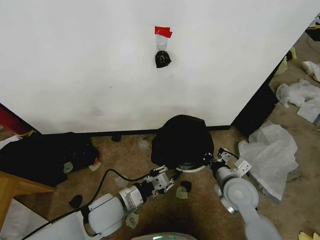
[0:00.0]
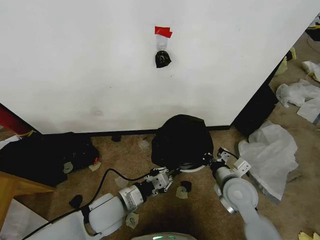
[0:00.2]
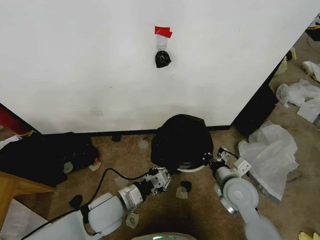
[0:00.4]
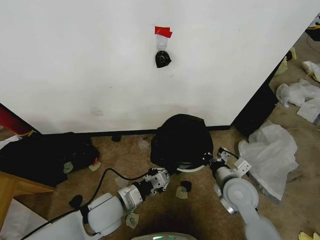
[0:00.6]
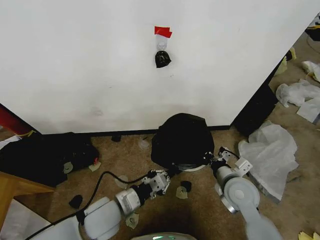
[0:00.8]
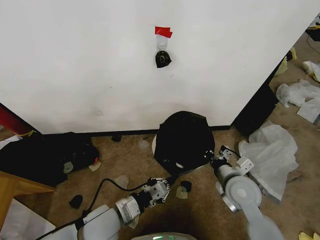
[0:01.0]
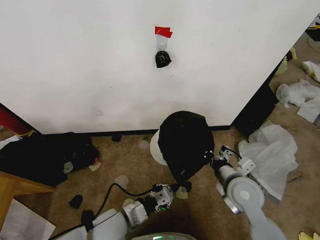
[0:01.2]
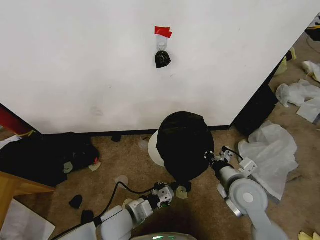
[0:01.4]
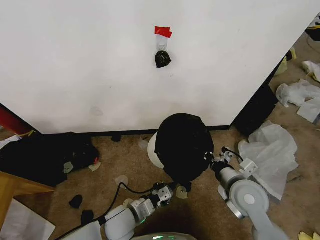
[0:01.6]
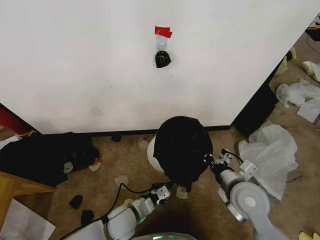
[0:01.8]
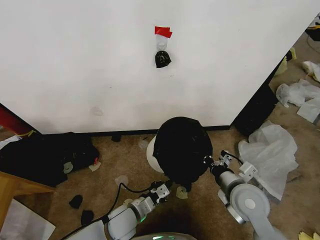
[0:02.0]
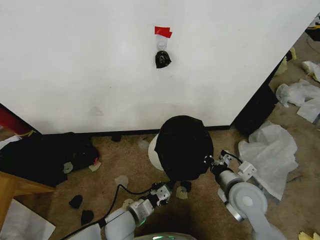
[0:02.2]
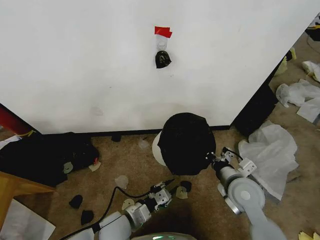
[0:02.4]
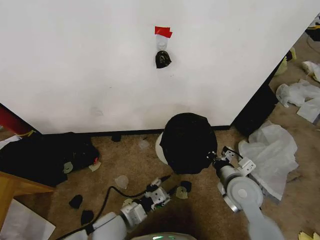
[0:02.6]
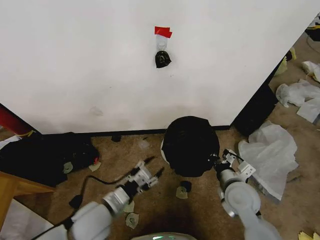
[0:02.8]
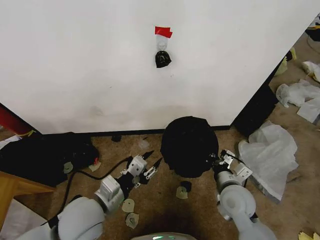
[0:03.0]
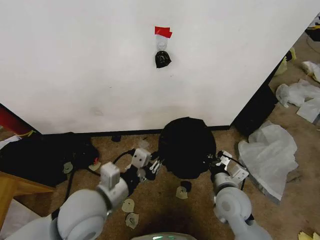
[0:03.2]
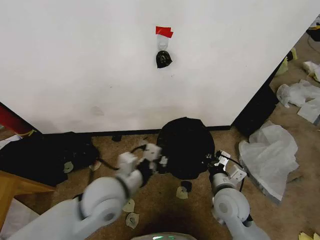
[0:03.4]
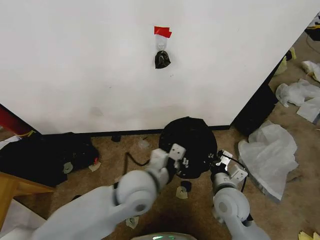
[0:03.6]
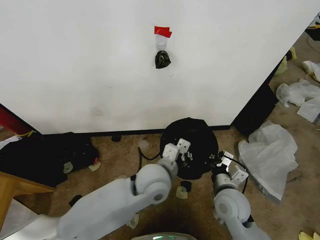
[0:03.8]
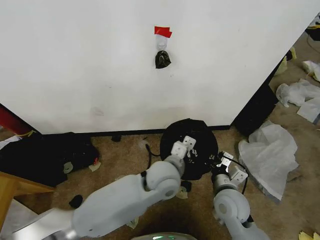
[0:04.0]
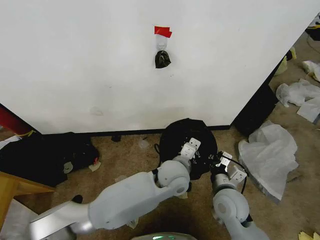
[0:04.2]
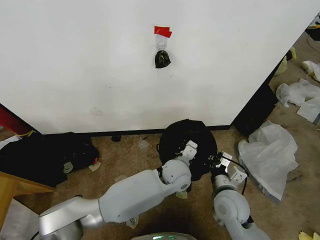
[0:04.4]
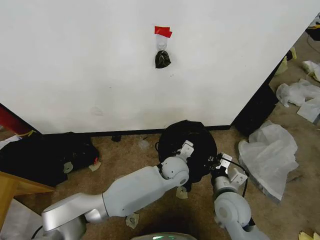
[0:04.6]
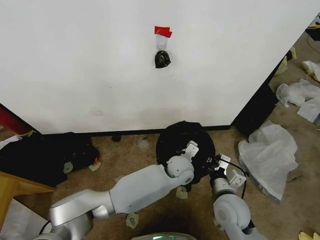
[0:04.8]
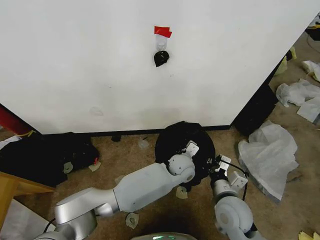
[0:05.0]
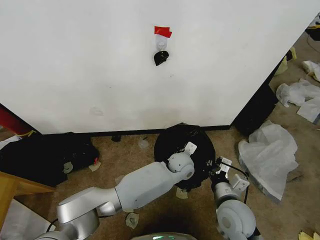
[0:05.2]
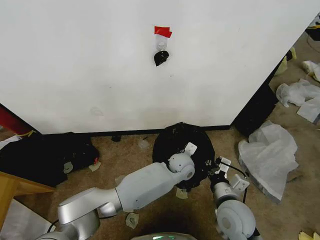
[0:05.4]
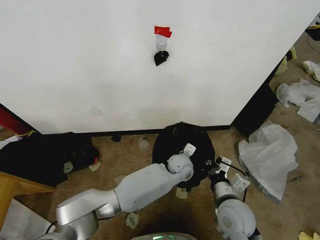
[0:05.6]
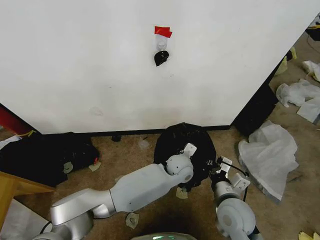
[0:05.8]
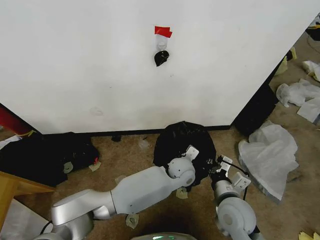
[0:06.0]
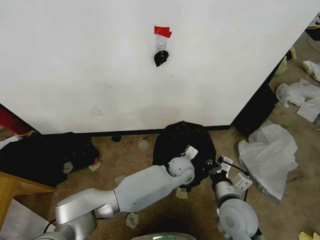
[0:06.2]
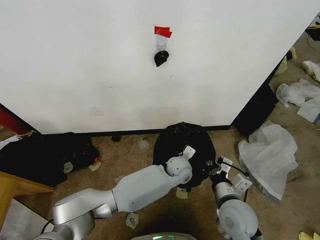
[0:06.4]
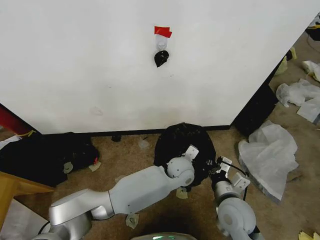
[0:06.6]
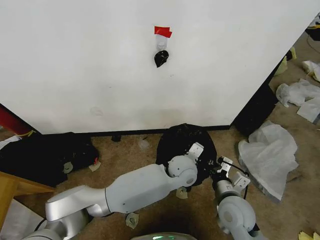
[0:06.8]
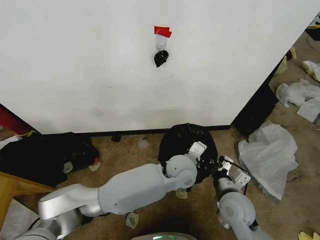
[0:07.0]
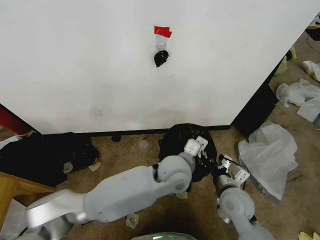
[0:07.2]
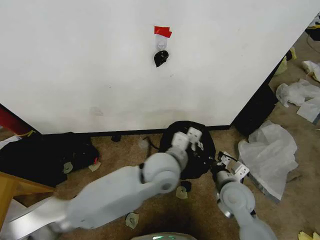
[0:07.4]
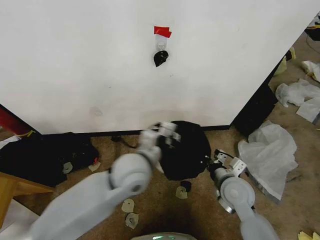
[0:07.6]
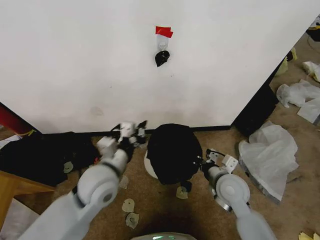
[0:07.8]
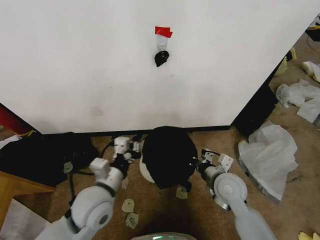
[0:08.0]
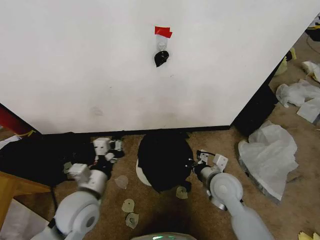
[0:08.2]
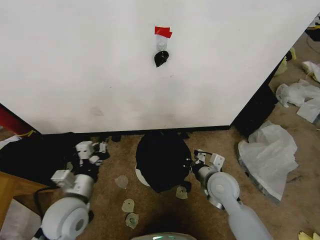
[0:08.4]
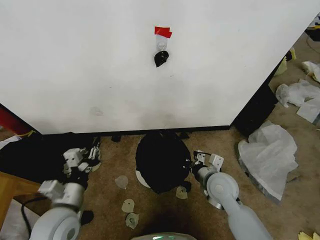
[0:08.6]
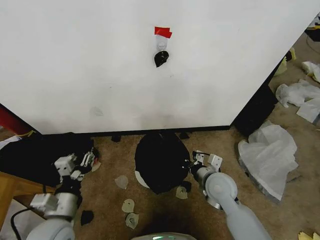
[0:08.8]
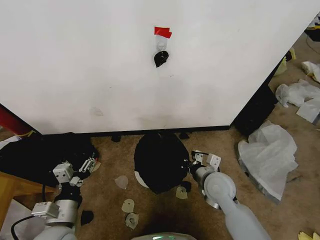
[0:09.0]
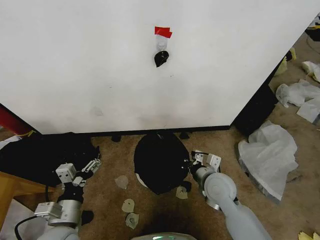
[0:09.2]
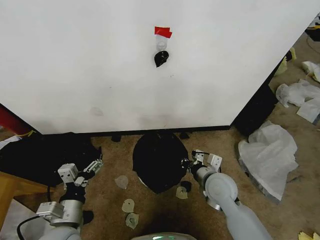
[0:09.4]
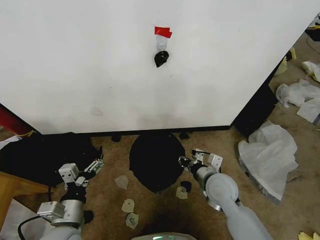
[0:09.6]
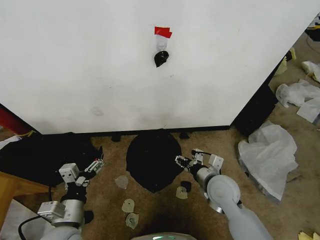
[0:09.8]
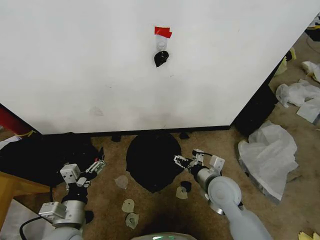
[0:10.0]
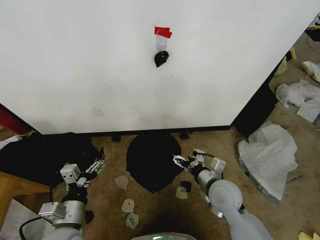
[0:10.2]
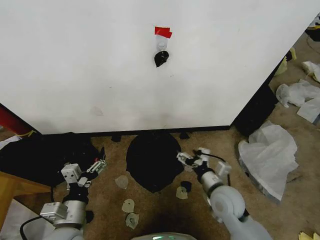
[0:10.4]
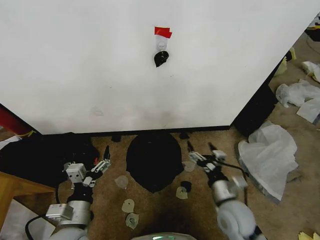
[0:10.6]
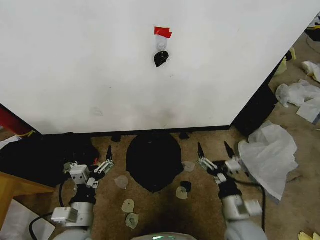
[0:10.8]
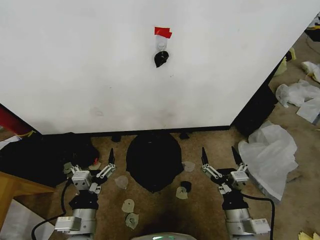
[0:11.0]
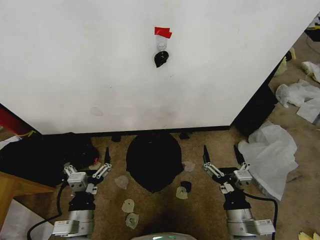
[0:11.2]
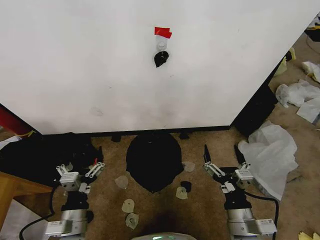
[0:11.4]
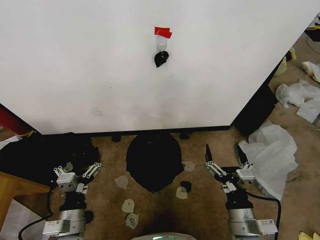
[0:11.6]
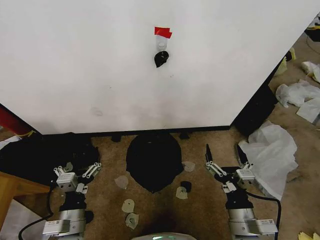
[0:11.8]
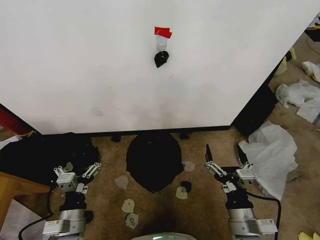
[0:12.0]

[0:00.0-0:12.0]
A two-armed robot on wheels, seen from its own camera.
Task of the whole recording: Place the garbage bag over the trash bin.
0:00.0 to 0:01.6: The left gripper travels downward by roughly 10 cm.
0:01.6 to 0:03.0: The left gripper moves upward, some 15 cm, and opens its fingers.
0:03.0 to 0:04.4: The left gripper is displaced to the right and forward by about 30 cm, and closes its fingers.
0:06.0 to 0:07.6: The right gripper heads forward, covering approximately 5 cm; the left gripper goes about 25 cm to the left, upward and backward.
0:07.6 to 0:09.0: The left gripper heads to the left, backward and downward, covering roughly 25 cm, and opens its fingers.
0:09.0 to 0:10.4: The right gripper opens its fingers.
0:10.4 to 0:12.0: The right gripper shifts roughly 15 cm backward.

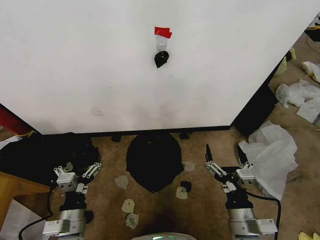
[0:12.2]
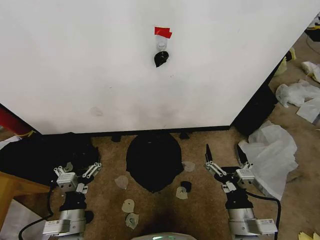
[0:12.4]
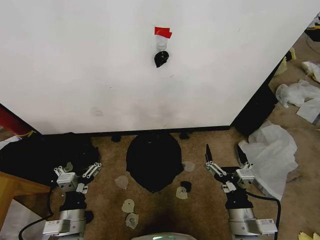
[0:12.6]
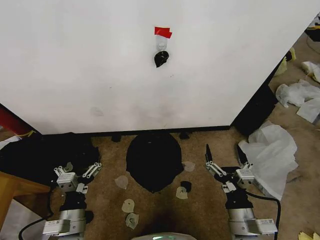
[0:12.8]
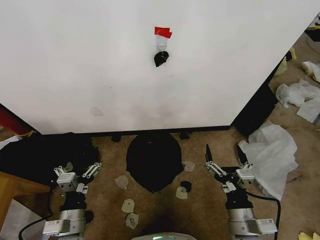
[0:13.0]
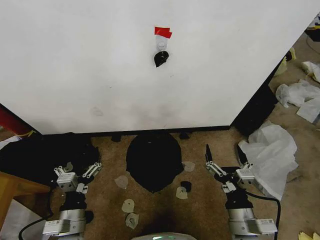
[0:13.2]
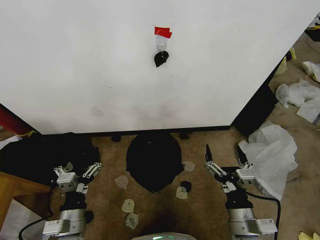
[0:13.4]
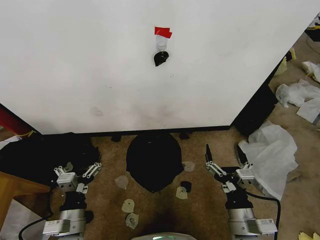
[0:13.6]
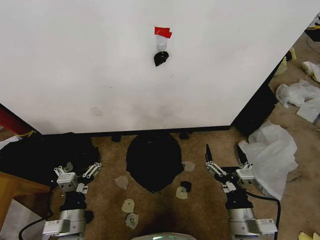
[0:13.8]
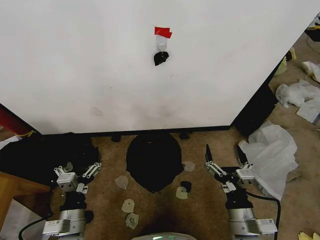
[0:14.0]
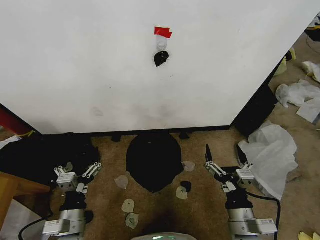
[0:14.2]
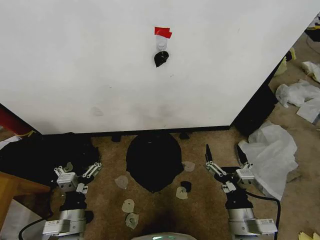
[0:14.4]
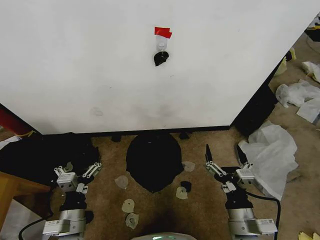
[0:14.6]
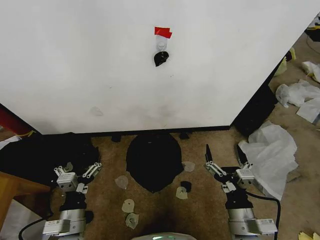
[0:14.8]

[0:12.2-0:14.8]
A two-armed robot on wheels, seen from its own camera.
Task of the whole recording: Place the garbage bag over the trash bin.
0:12.2 to 0:14.8: The two grippers keep their place.
